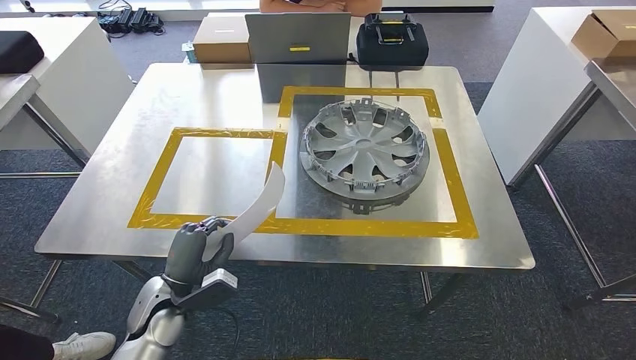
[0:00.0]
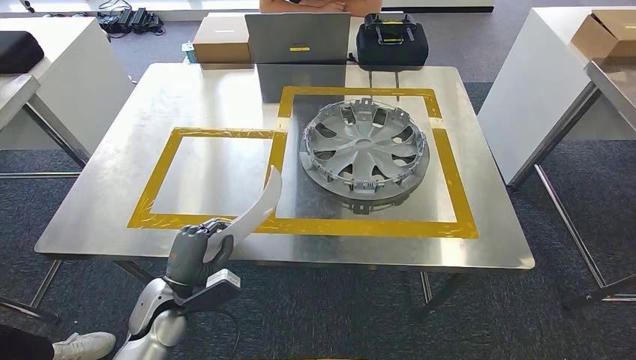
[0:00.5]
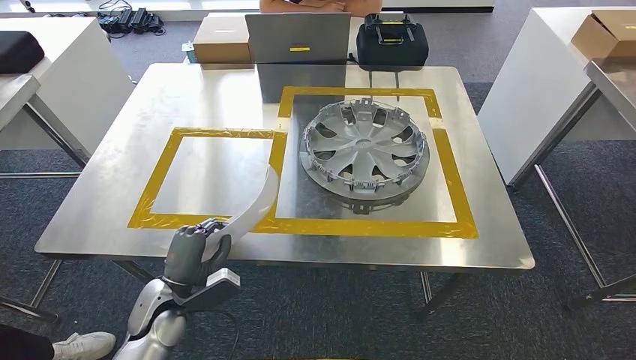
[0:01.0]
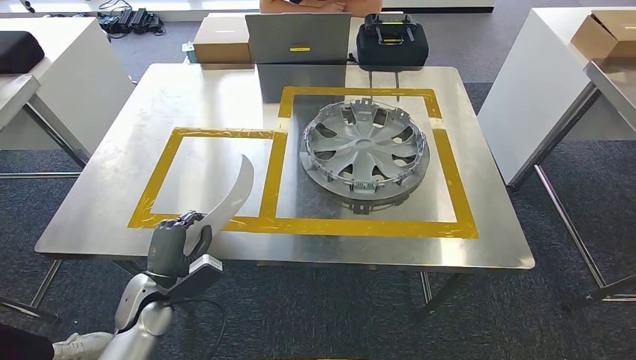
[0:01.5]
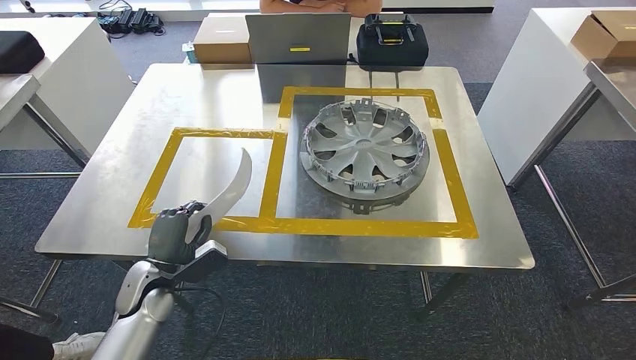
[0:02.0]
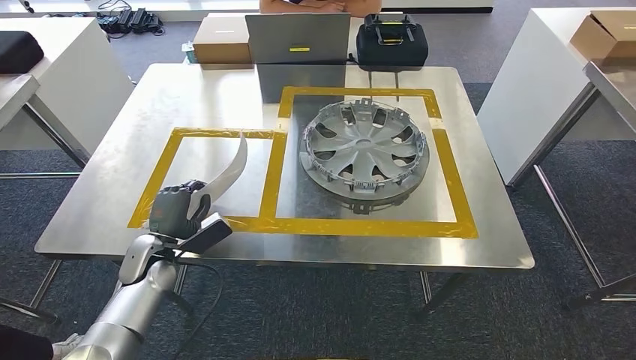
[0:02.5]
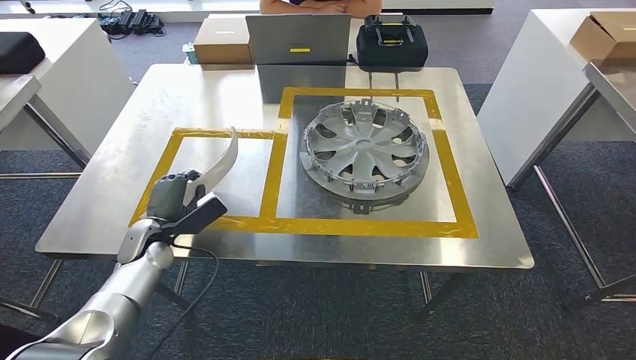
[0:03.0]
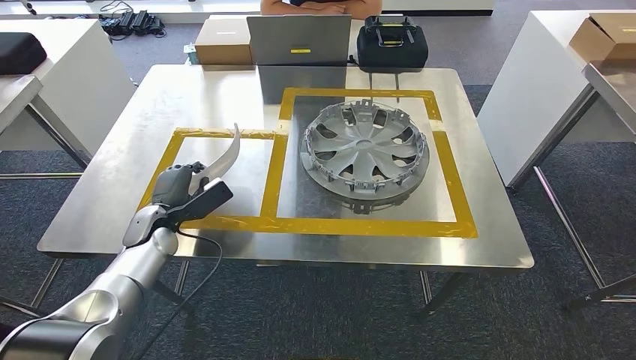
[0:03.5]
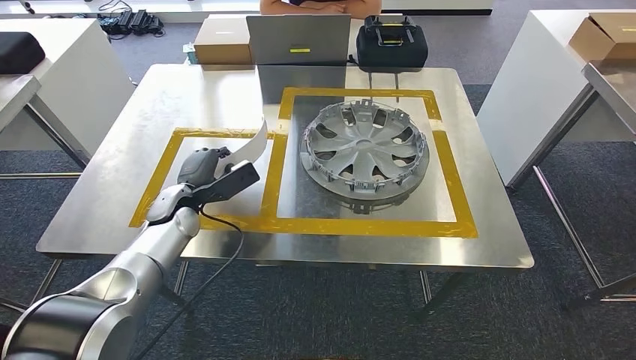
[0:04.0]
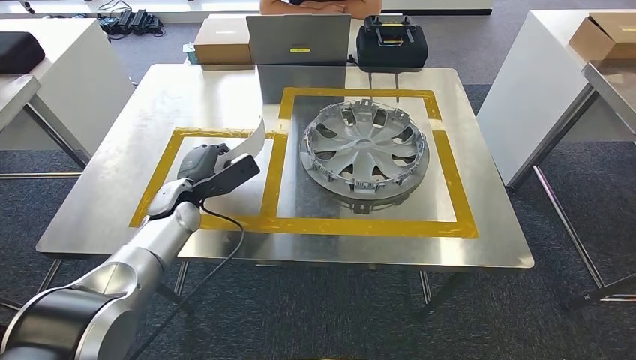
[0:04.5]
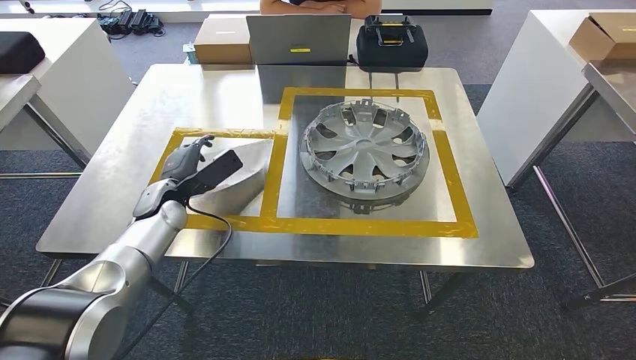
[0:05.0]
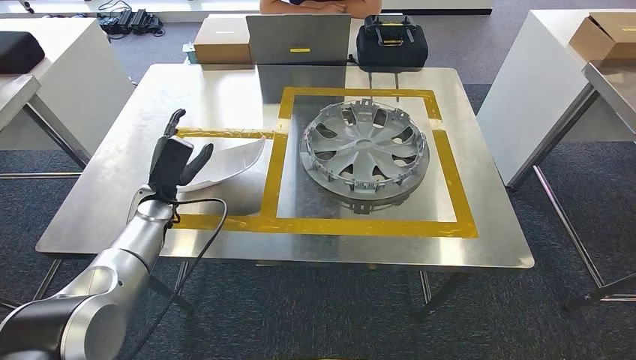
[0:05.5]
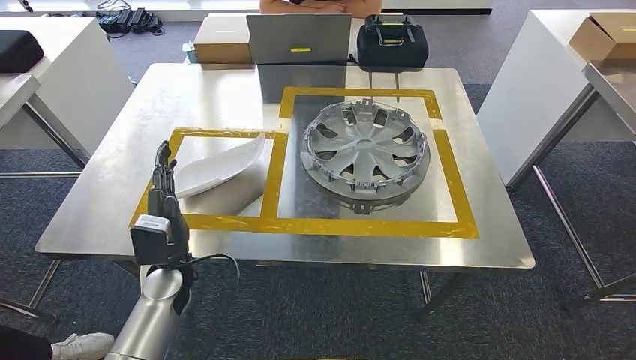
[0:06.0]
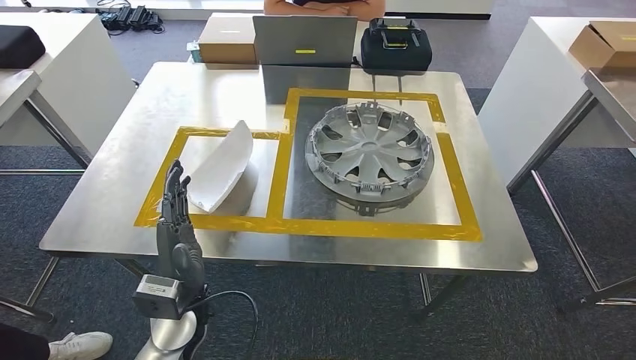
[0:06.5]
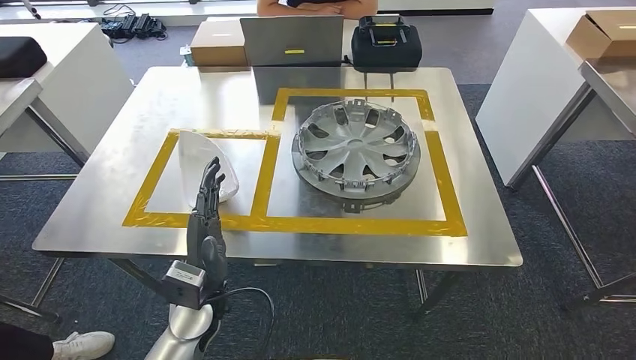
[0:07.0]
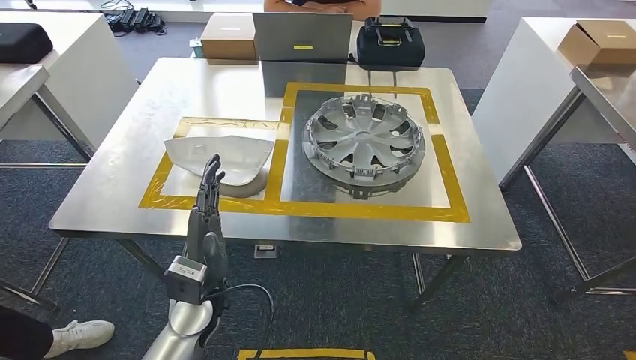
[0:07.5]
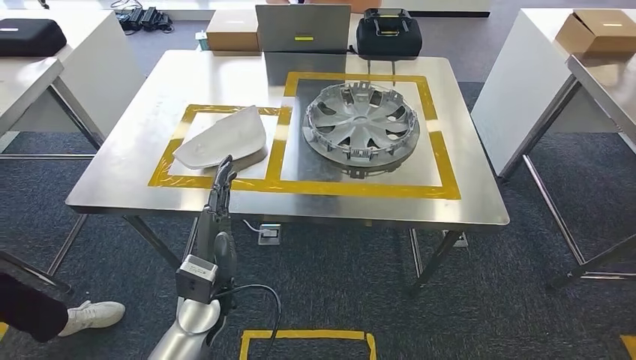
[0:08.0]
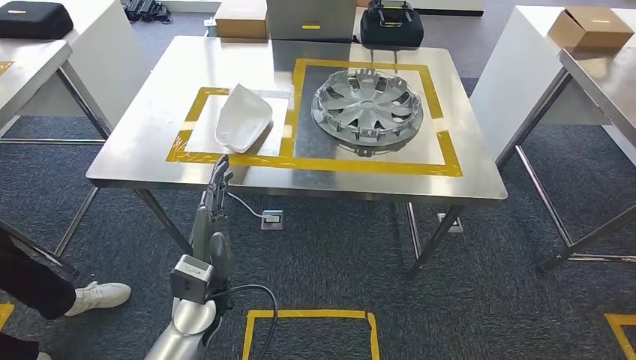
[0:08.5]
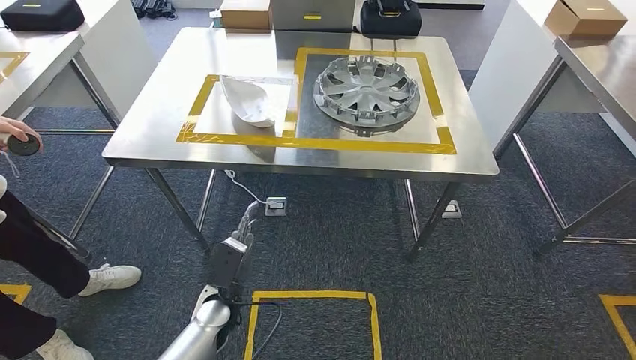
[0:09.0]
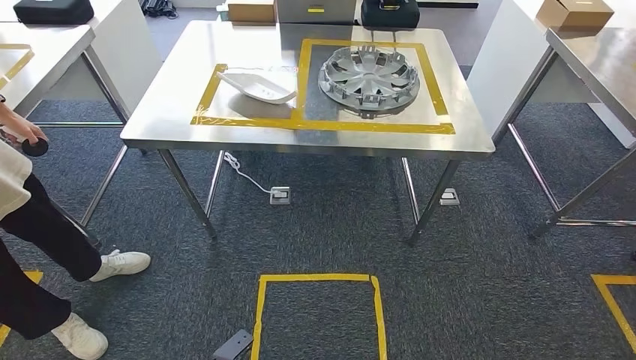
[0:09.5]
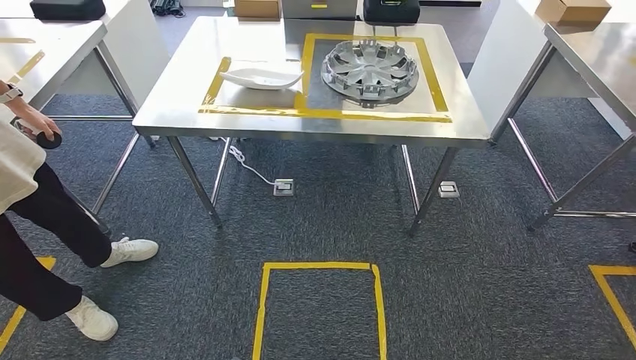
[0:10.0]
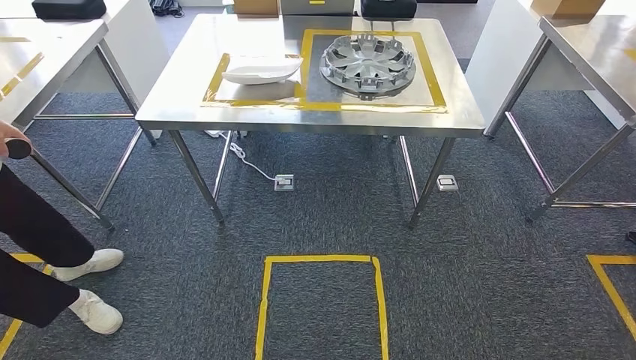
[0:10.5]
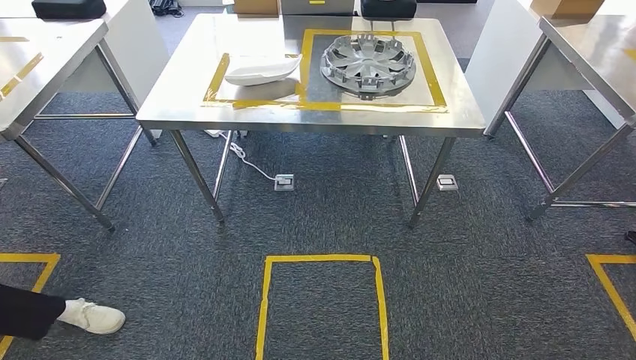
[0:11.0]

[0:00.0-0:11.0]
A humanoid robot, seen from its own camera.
Step, 0:00.0 to 0:06.5: Insert the small component into the corresponding slot on the workbench.
Step, 0:07.0 to 0:11.0: Return to the initial position at the workbench.
0:00.0 to 0:02.0: The left hand changes place by about 5 cm.
0:02.0 to 0:03.5: The left hand goes about 10 cm forward.
